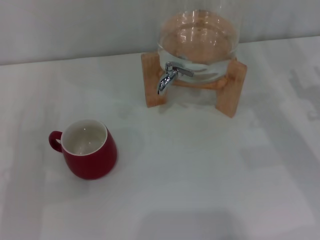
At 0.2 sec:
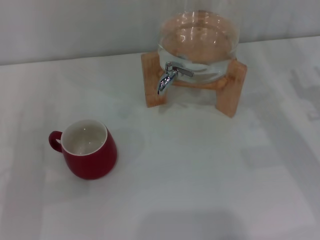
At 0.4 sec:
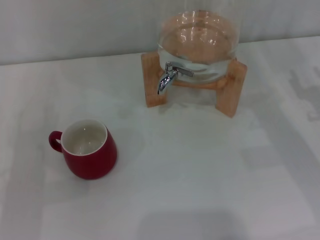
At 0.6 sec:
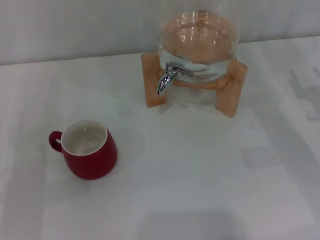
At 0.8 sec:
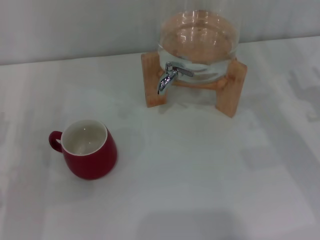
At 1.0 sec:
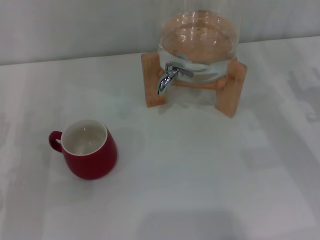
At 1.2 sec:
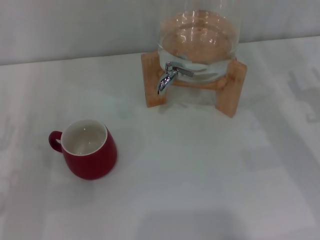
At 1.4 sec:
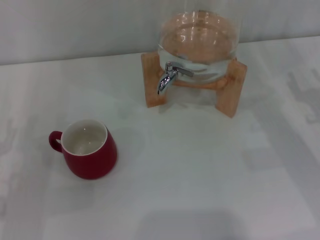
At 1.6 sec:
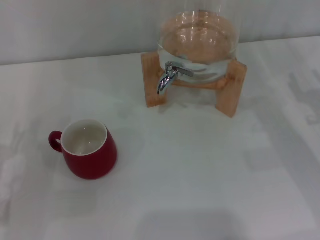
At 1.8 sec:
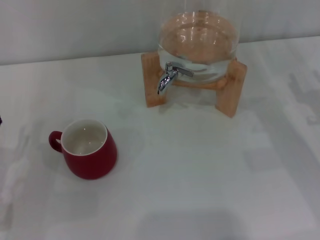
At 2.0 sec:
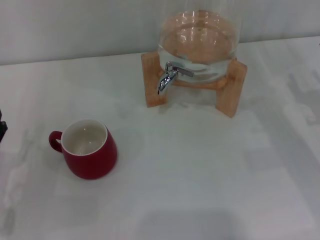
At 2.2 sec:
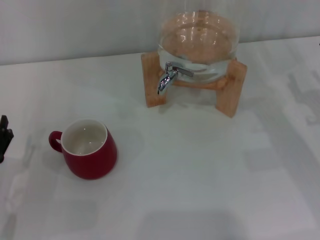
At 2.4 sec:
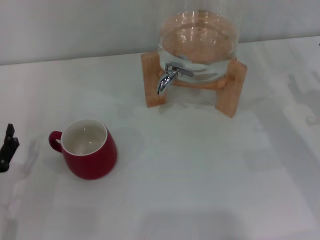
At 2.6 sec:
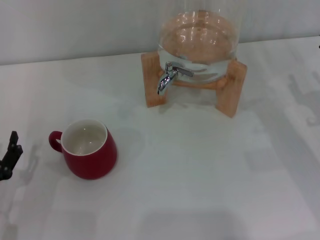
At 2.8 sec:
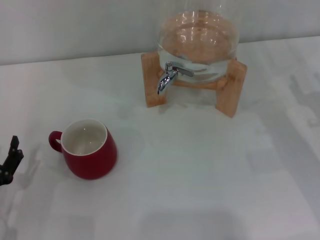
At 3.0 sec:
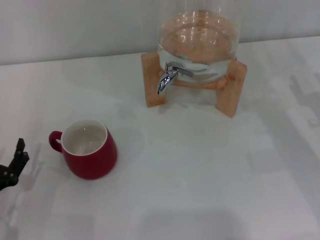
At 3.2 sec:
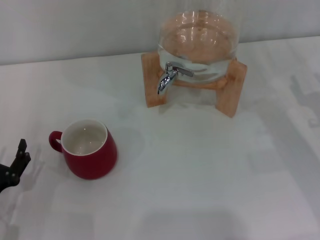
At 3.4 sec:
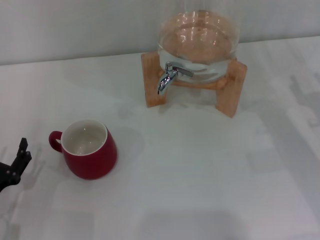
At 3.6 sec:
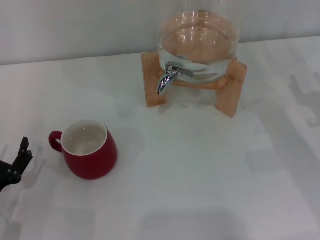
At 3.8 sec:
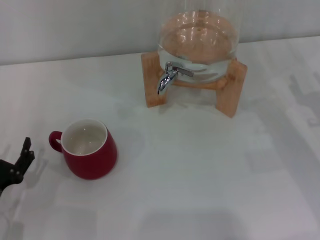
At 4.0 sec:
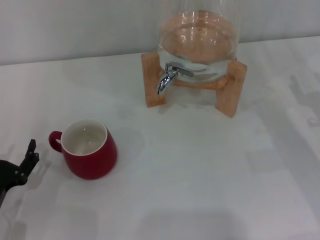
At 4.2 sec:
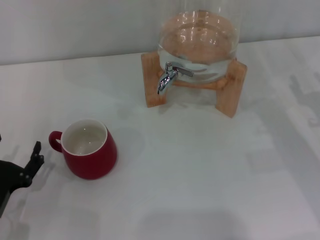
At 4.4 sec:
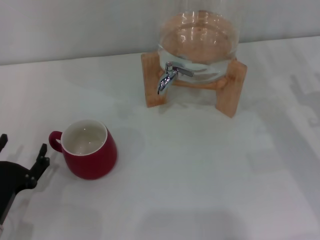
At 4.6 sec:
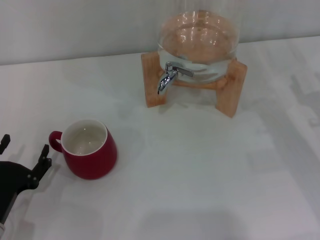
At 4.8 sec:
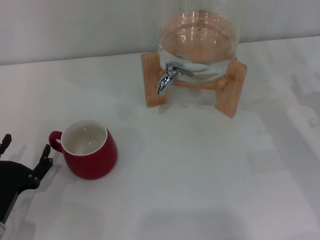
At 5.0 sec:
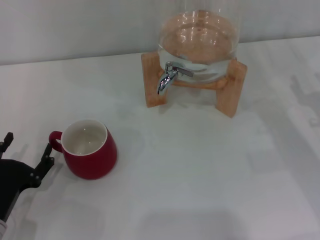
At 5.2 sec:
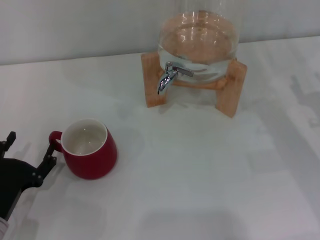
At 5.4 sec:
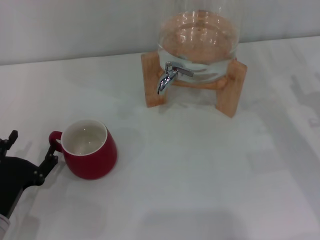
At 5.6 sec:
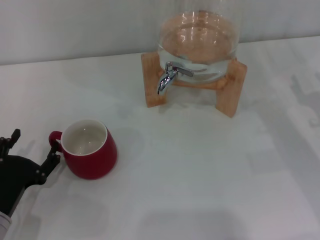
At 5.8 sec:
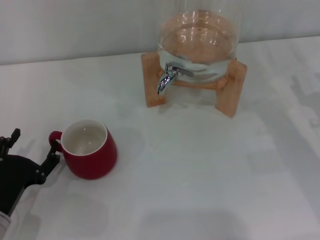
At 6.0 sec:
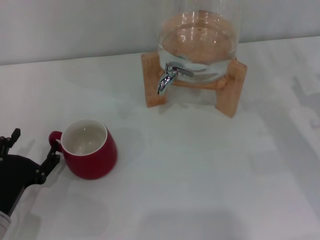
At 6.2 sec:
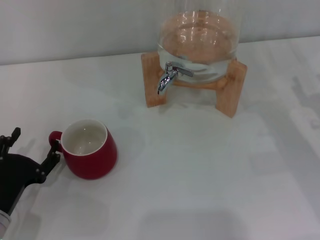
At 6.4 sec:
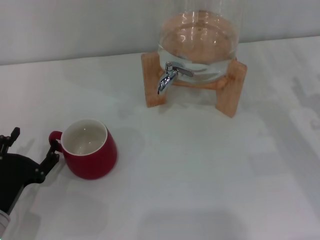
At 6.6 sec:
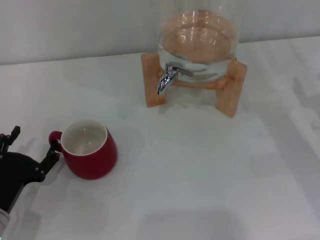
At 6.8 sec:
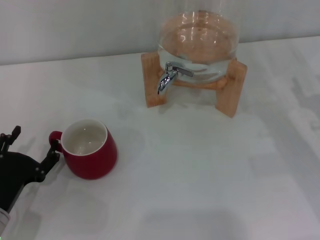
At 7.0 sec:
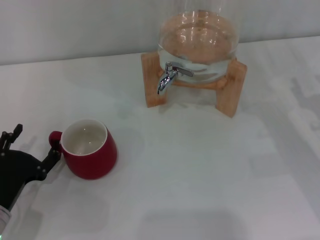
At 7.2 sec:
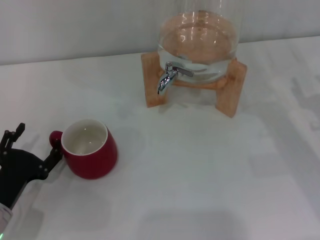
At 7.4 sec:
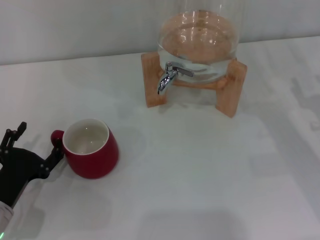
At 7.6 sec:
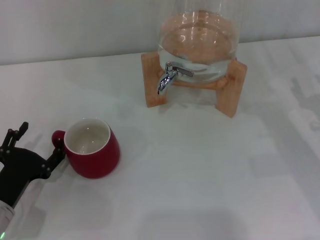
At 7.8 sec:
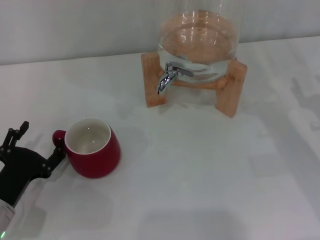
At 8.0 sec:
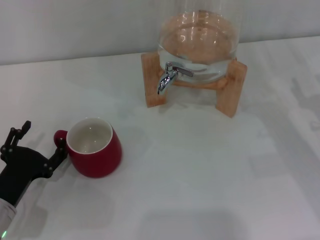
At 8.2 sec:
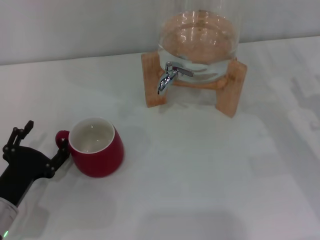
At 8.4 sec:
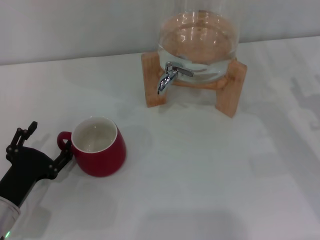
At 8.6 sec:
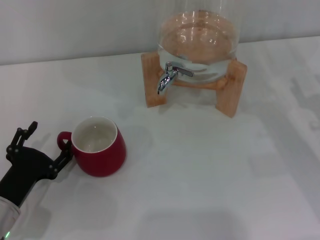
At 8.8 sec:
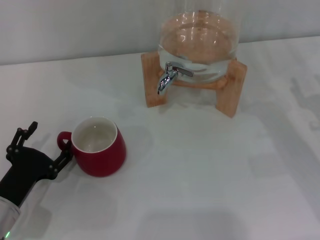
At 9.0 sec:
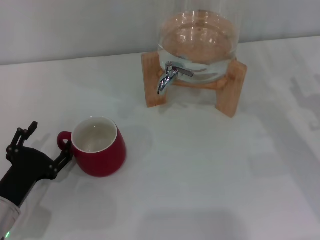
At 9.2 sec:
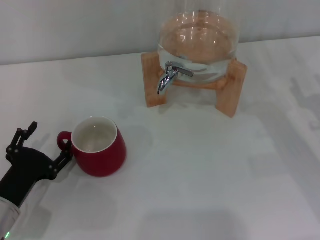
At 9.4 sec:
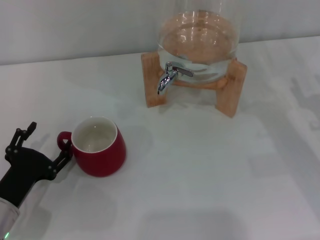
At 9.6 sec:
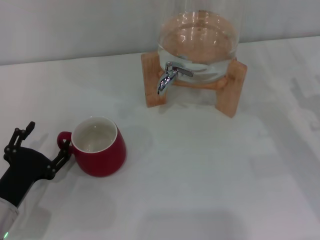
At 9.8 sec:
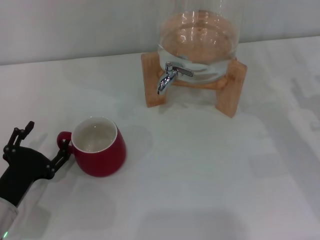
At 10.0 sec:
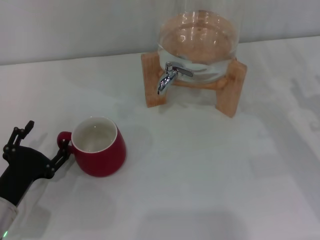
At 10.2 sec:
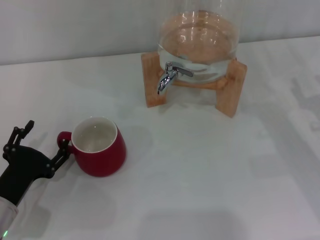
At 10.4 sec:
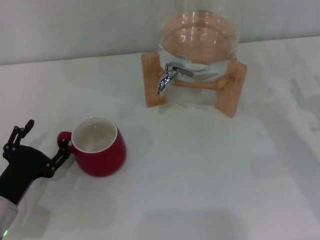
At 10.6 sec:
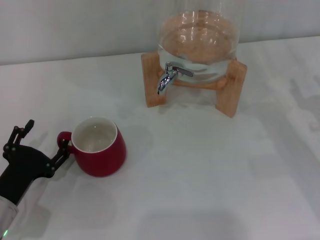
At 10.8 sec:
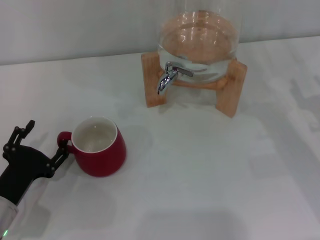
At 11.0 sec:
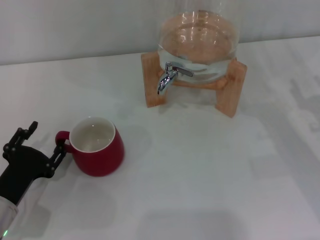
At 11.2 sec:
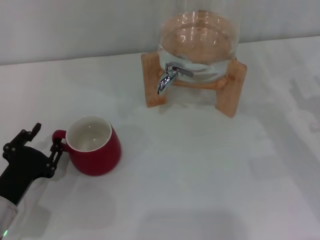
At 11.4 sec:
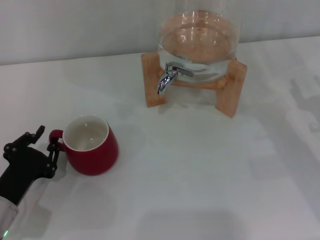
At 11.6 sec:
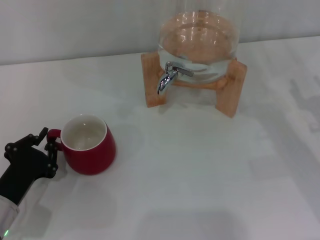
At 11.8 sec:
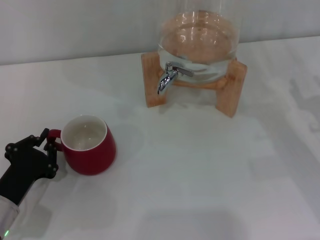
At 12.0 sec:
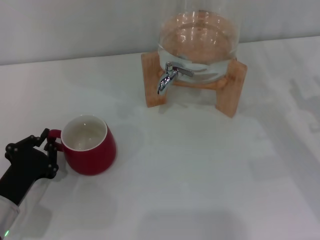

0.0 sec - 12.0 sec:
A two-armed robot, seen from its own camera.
Task of the whole recording: the left gripper pick up the red cup and place it horizontally under the faucet, the right gripper turn on the faucet to fill the cup, and then turn off the faucet.
1.6 sec - 3.0 sec: The left gripper shifts by about 5 cm.
3.0 sec - 4.4 sec: The grippers move only a little.
4.4 sec - 6.0 sec: Both grippers stay put.
6.0 sec - 7.6 sec: Both grippers stay about where they are.
7.6 sec - 10.4 sec: Neither gripper changes place.
10.4 sec - 12.0 sec: The left gripper closes its fingers.

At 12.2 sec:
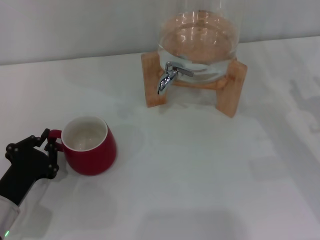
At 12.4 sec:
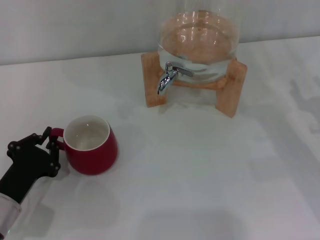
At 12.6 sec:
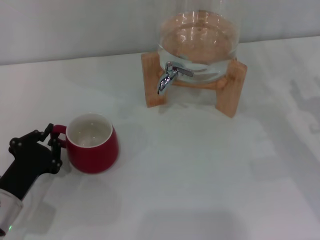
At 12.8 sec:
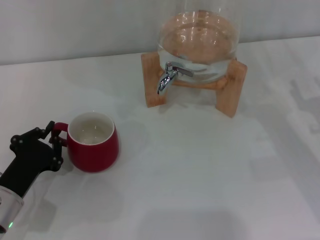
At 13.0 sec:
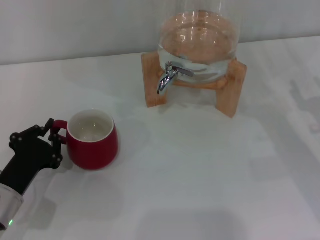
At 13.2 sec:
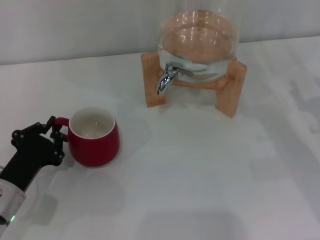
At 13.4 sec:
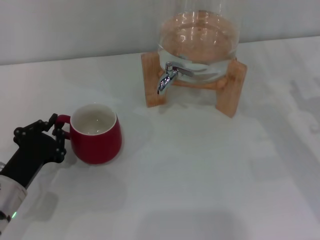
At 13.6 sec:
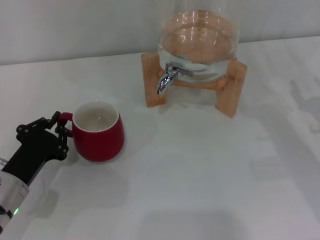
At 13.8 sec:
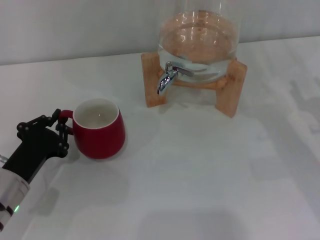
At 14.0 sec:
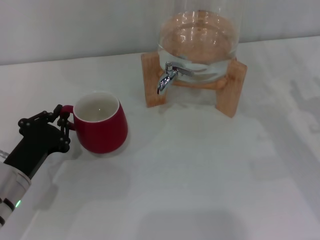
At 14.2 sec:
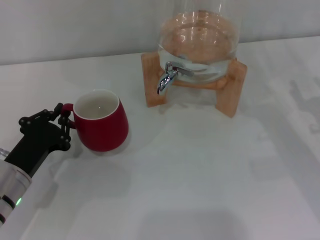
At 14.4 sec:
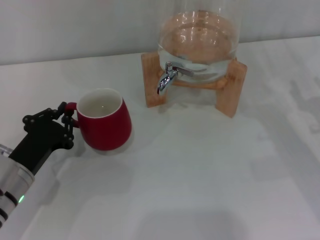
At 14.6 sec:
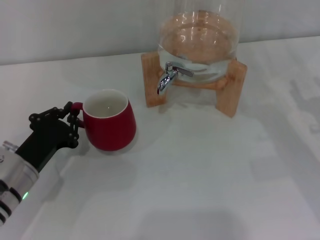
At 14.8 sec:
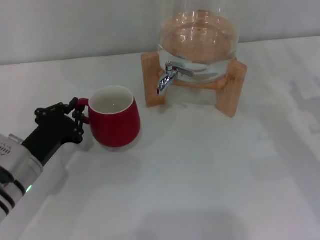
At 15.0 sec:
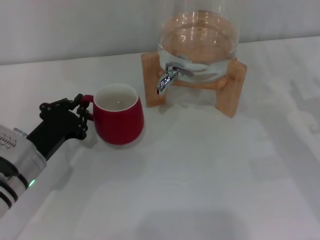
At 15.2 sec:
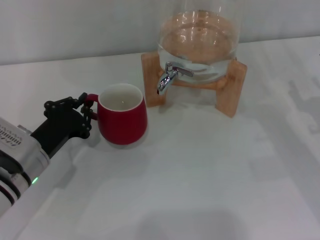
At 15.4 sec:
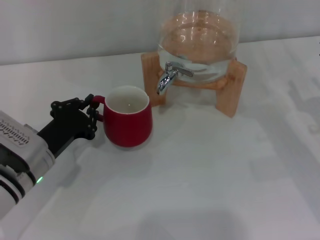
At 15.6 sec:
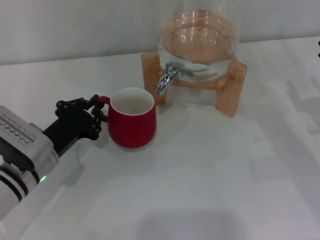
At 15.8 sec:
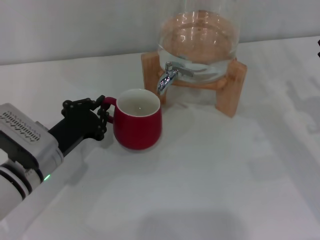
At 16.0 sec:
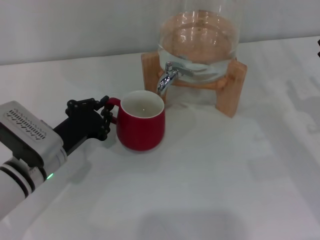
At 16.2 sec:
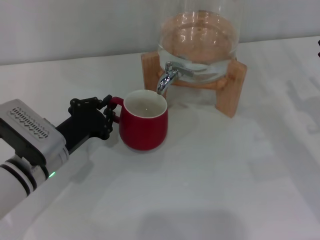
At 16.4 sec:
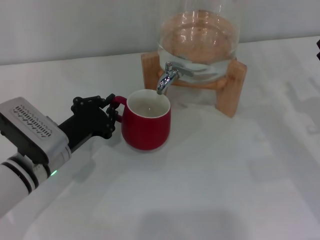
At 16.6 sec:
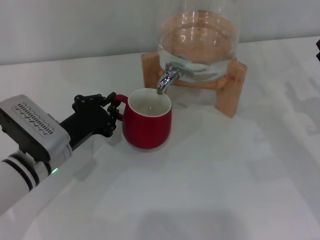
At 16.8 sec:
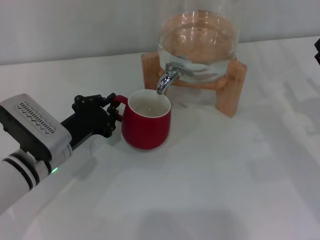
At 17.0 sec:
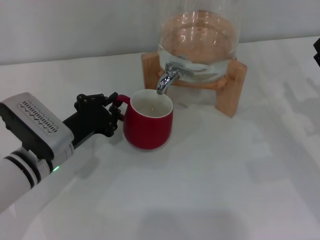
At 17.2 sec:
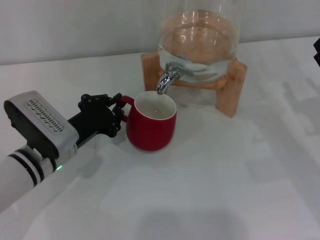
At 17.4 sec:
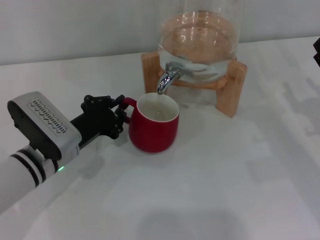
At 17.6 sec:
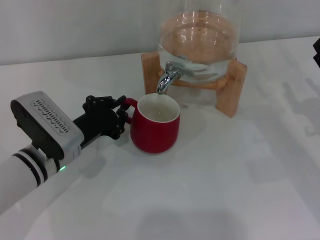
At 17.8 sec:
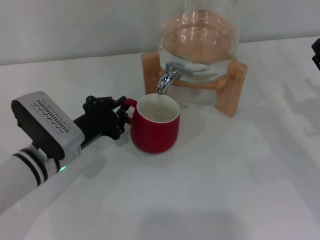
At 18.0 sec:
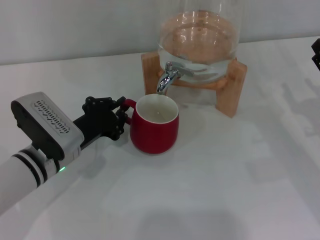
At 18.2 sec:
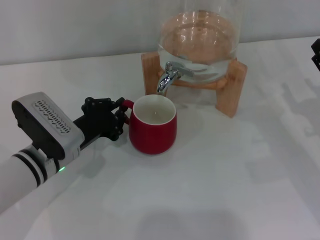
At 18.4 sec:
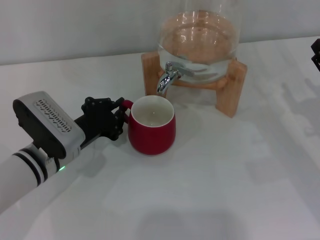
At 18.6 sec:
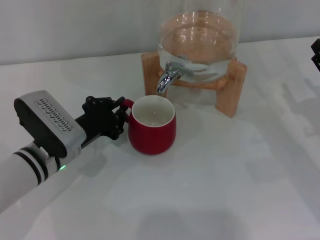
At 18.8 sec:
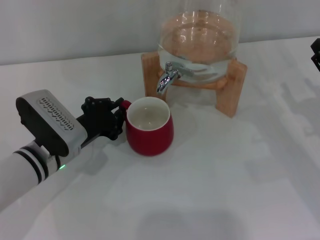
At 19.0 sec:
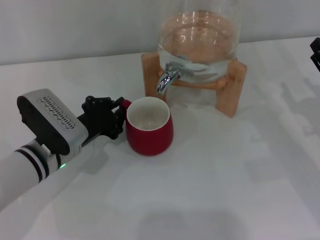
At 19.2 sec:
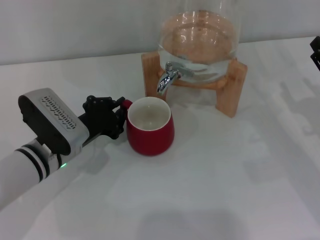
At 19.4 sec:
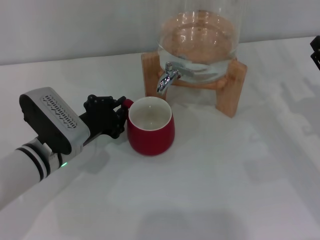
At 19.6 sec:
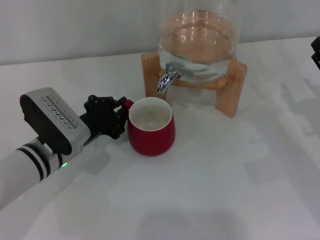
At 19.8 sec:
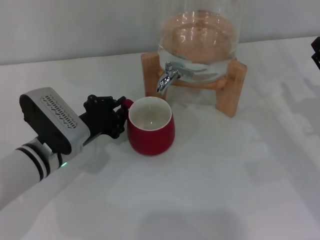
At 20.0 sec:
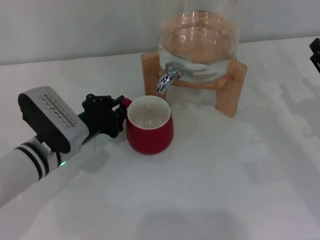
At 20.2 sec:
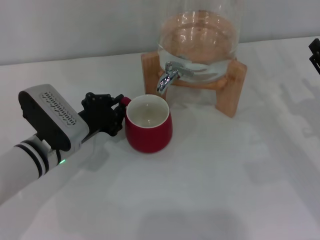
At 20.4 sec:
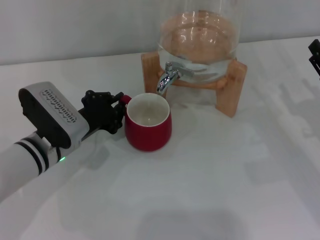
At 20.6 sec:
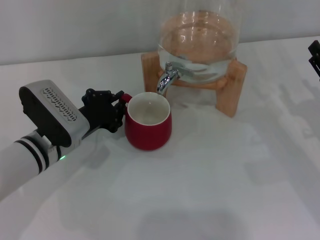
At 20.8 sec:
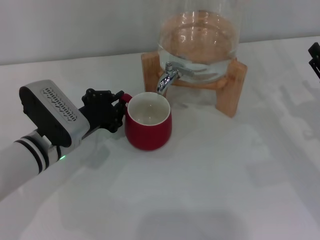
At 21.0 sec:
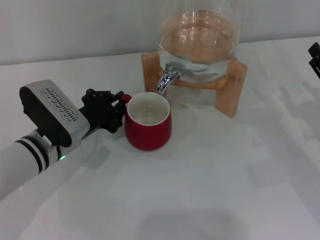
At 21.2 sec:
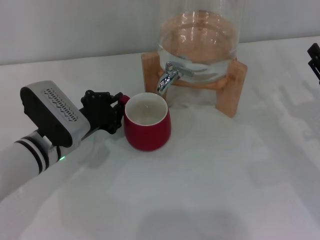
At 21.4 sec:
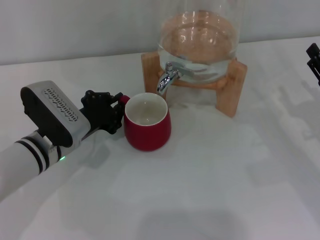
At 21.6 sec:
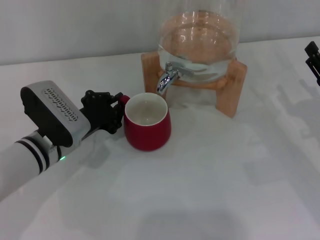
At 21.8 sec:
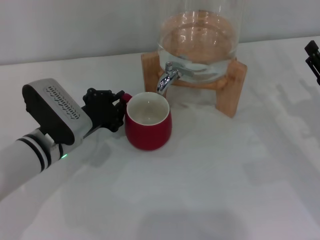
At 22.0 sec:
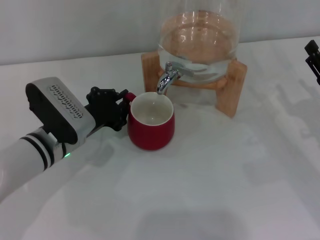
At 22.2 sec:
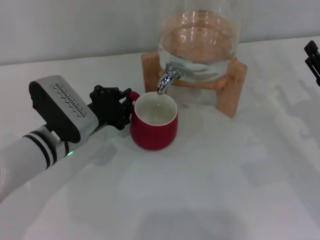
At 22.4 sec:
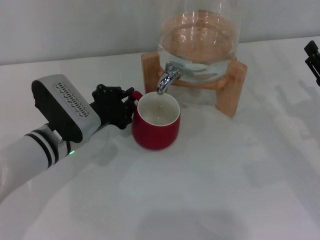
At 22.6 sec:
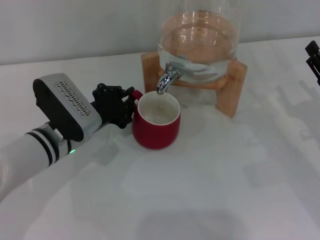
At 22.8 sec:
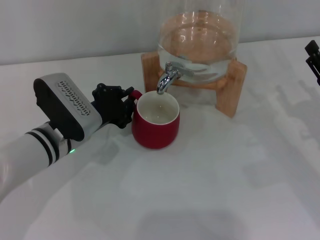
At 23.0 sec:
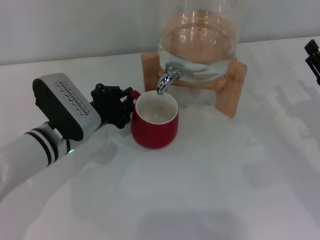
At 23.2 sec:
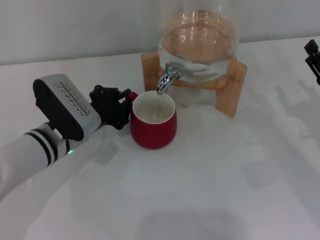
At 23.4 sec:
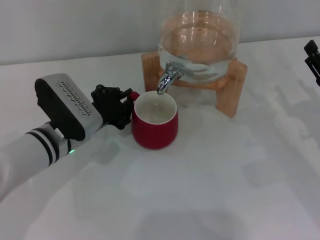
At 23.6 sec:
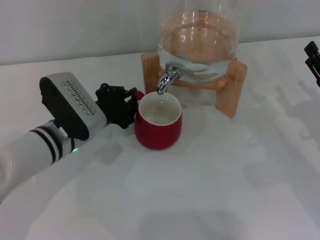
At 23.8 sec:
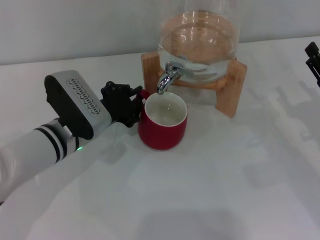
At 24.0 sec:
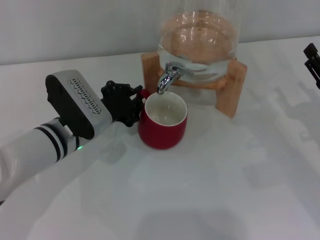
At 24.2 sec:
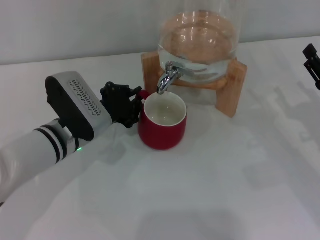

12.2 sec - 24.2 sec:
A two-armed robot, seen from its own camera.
Task of the whole recording: the left gripper pick up the red cup and place it horizontally under the faucet, the right gripper turn on the faucet to fill the cup, and then turn off the faucet.
12.2 sec - 13.8 sec: The grippers stay close to where they were, moving slightly.
13.8 sec - 15.2 sec: The left gripper ends up approximately 5 cm from where it was.
15.2 sec - 18.2 sec: There are only small adjustments of the grippers.
18.2 sec - 19.8 sec: Both grippers stay about where they are.
19.8 sec - 21.2 sec: Both grippers stay about where they are.
21.2 sec - 22.6 sec: There are only small adjustments of the grippers.
22.6 sec - 24.2 sec: Neither gripper changes place.
